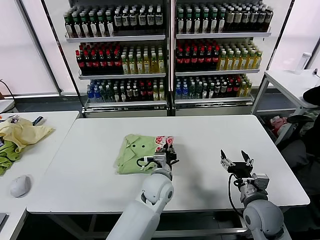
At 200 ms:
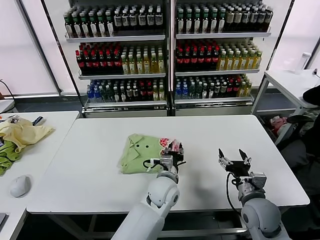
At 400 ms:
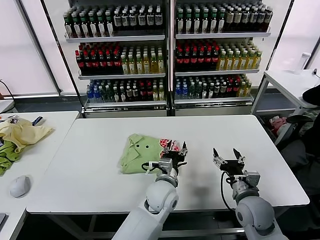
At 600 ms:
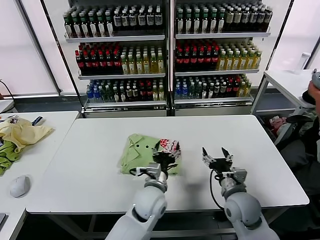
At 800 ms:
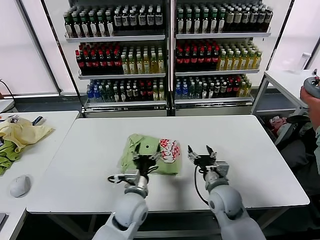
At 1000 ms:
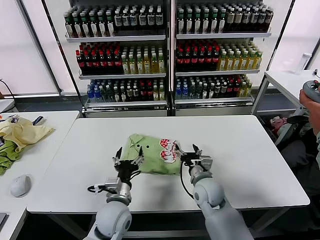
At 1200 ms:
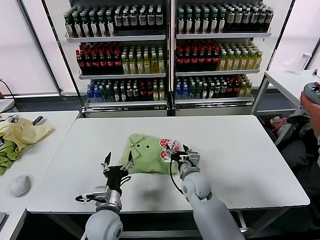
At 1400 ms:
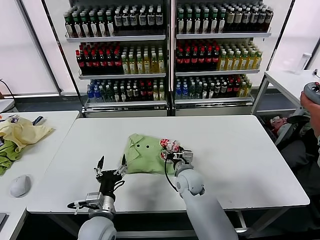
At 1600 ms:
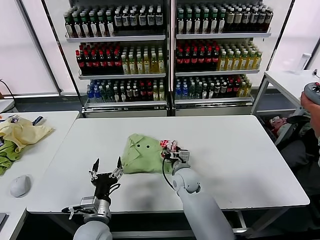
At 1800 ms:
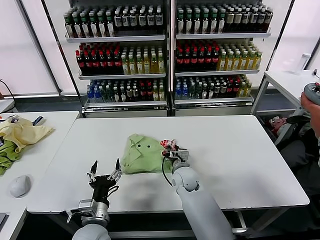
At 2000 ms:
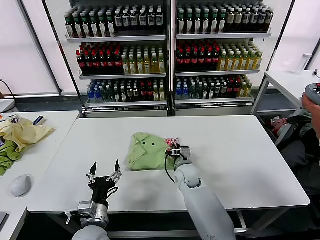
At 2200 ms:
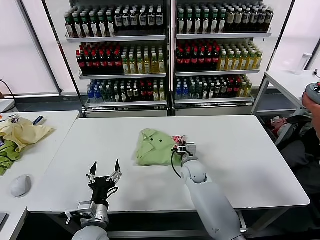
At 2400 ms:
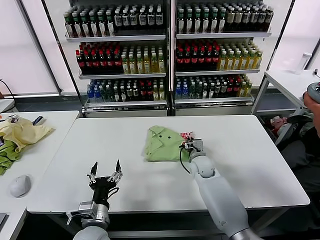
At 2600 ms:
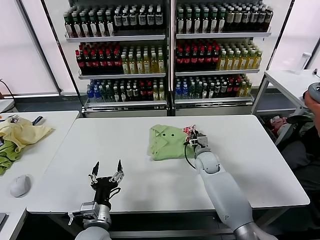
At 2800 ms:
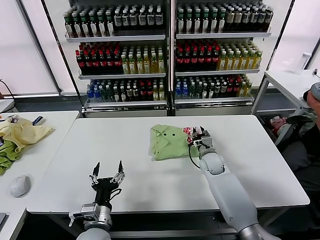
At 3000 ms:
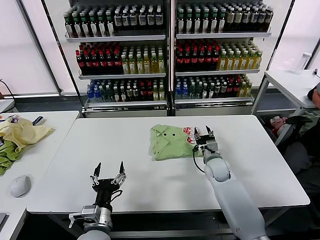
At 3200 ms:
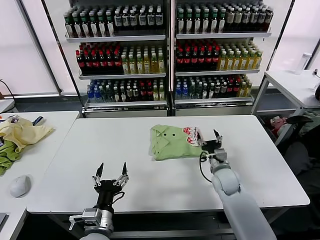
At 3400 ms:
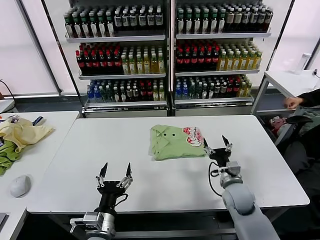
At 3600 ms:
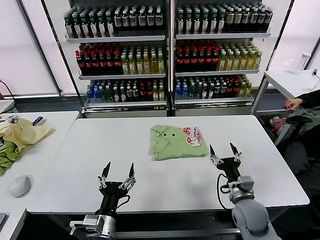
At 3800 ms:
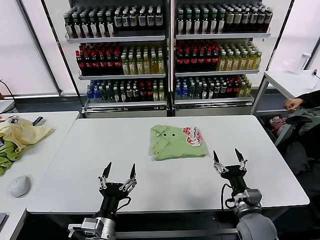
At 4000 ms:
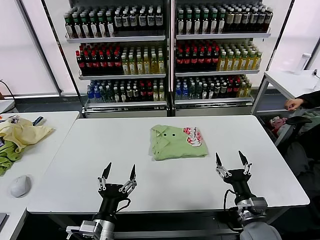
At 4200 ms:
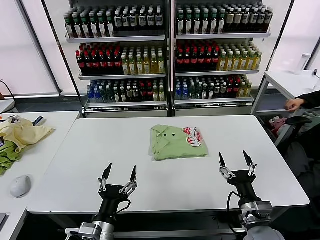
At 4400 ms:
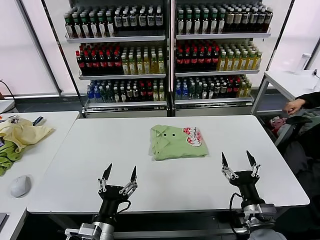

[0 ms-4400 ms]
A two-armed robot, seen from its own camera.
Task of the whole recording: fold and organize the clothes.
Step, 400 ms to 3000 ms: Drag the clothes to the center of the table.
0 ms to 1400 ms: The left gripper is displaced to the left and backward by some 20 cm, and opens its fingers, while the right gripper moves to the left and forward, about 25 cm.
1400 ms to 3000 ms: The right gripper moves to the right and forward, approximately 15 cm, and closes its fingers.
3000 ms to 4400 ms: The left gripper shifts roughly 5 cm backward. Meanwhile the right gripper heads backward, covering some 30 cm, and opens its fingers.
